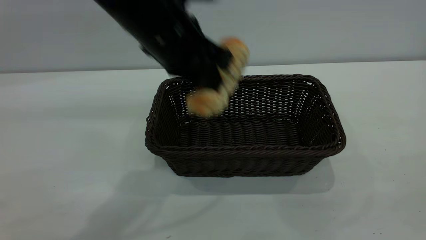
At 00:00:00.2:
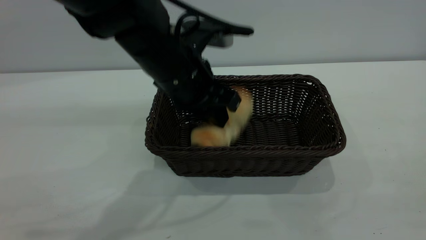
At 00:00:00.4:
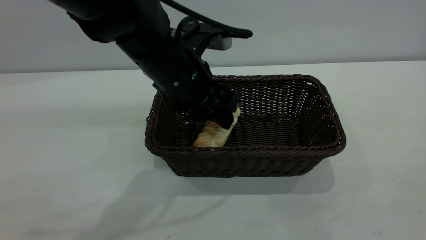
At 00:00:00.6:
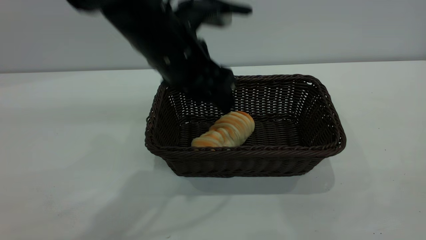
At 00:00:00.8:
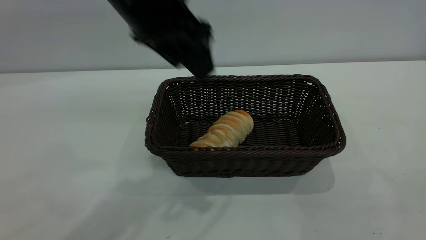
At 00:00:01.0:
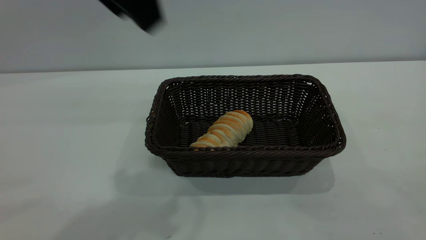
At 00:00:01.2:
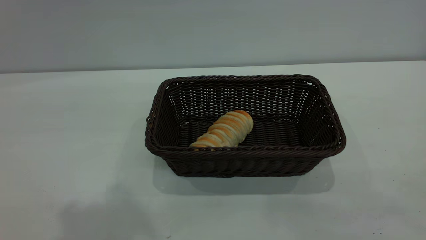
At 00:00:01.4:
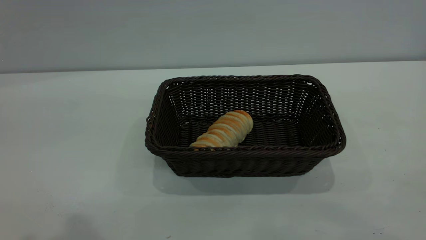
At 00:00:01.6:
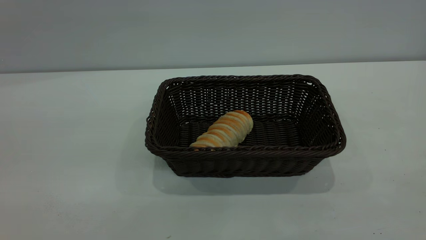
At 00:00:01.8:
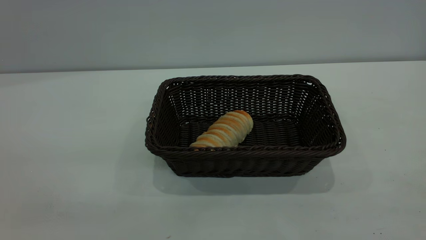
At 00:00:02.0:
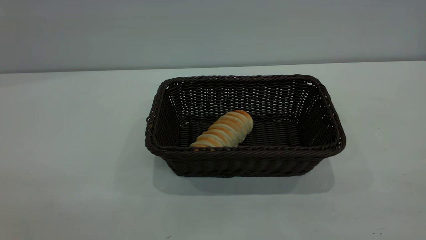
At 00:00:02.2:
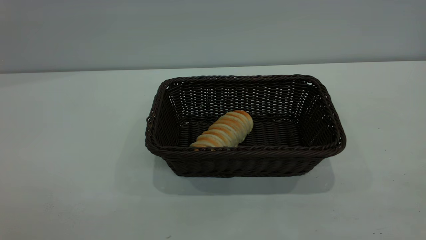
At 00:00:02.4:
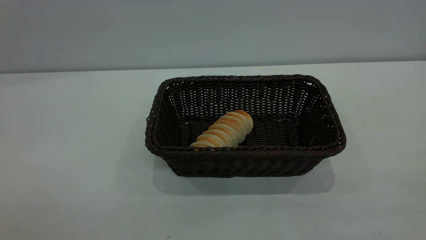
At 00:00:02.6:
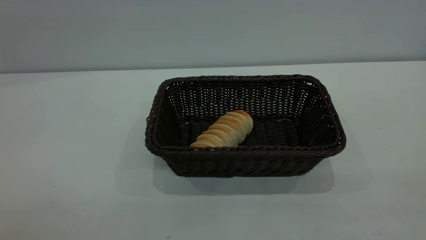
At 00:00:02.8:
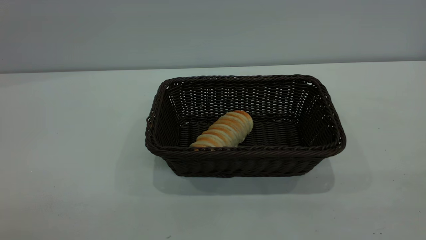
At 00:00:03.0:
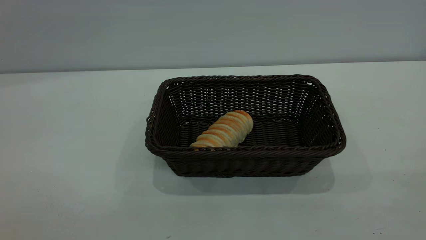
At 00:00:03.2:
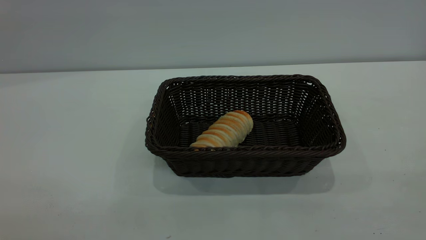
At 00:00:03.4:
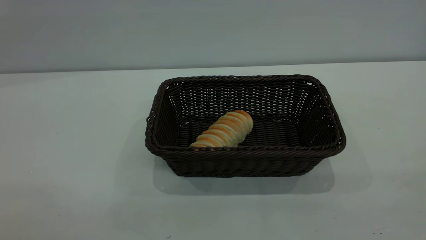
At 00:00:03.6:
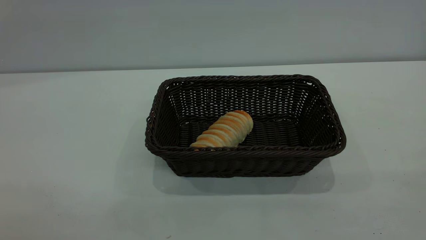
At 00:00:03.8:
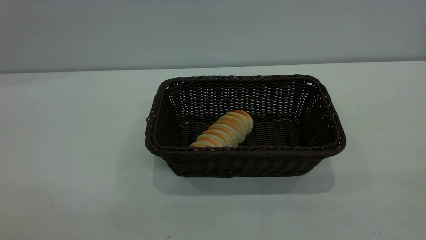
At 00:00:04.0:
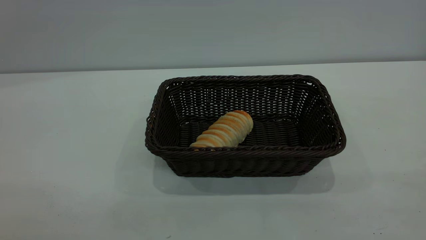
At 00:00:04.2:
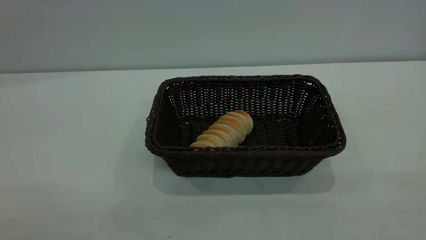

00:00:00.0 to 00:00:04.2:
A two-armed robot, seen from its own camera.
Task of the whole recording: One hand grasps the black basket and places it in the middle of the table, while the other hand picks up the long bread and puts it into the black basket.
Step, 00:00:00.0 to 00:00:00.8: place the bread into the basket.
00:00:00.0 to 00:00:01.4: The left gripper travels upward, backward and to the left by about 30 cm, and opens.
